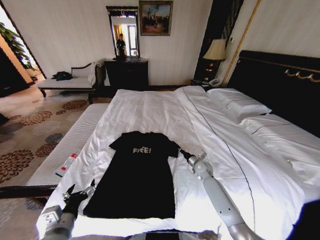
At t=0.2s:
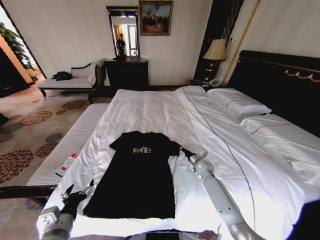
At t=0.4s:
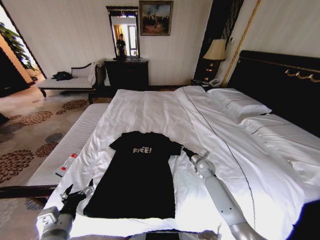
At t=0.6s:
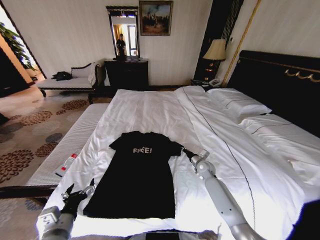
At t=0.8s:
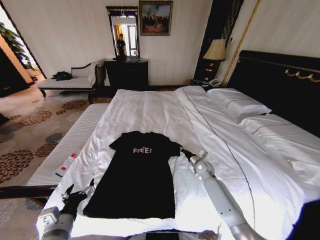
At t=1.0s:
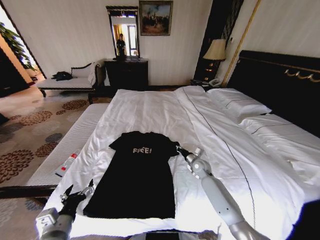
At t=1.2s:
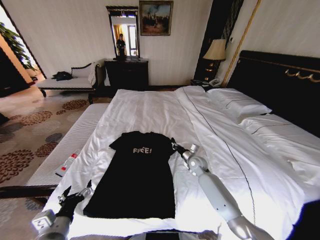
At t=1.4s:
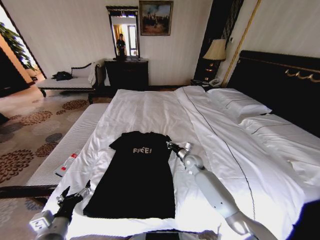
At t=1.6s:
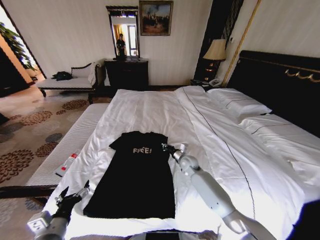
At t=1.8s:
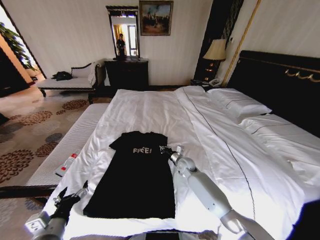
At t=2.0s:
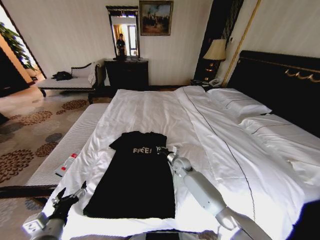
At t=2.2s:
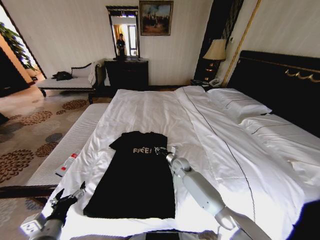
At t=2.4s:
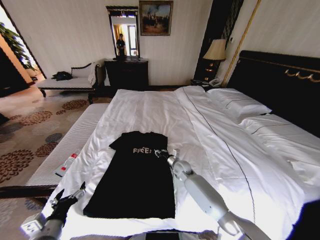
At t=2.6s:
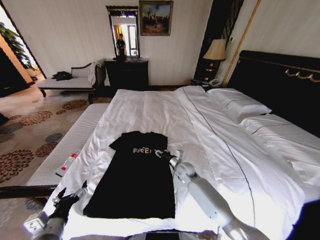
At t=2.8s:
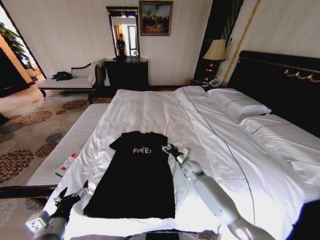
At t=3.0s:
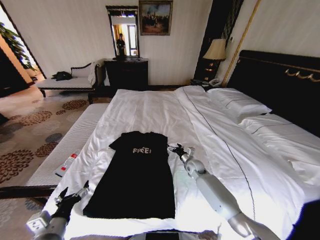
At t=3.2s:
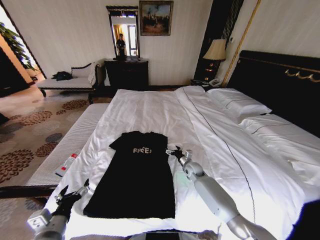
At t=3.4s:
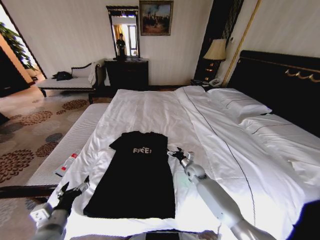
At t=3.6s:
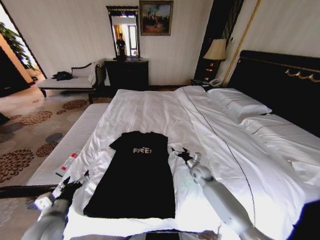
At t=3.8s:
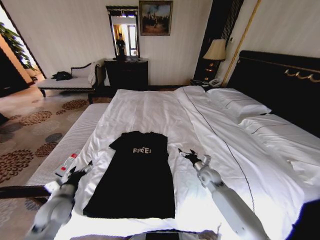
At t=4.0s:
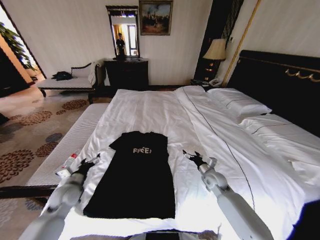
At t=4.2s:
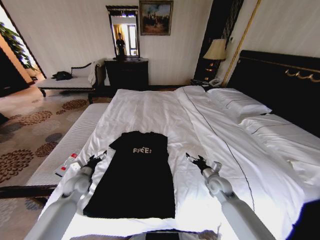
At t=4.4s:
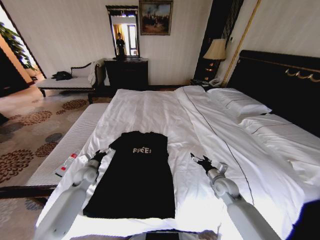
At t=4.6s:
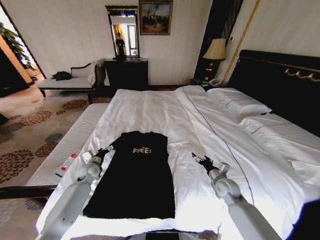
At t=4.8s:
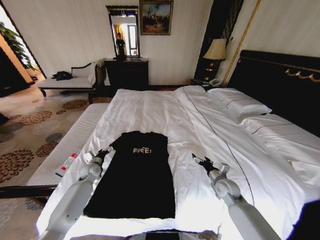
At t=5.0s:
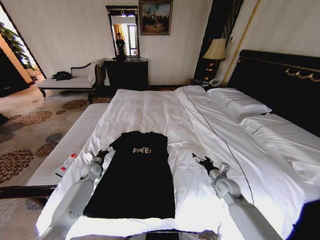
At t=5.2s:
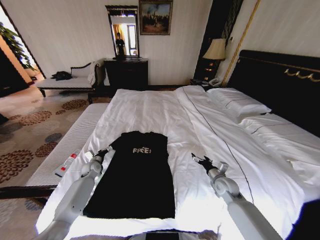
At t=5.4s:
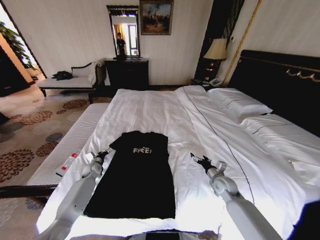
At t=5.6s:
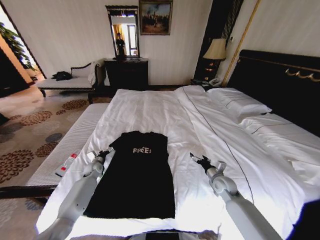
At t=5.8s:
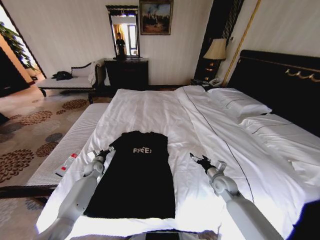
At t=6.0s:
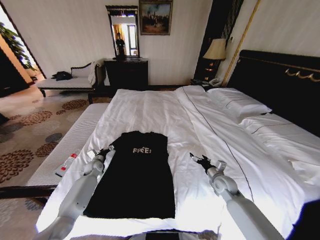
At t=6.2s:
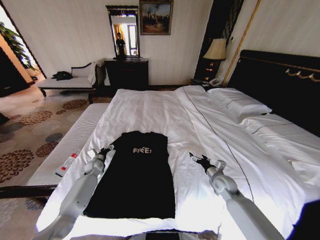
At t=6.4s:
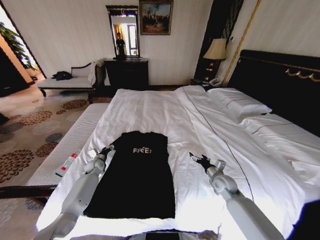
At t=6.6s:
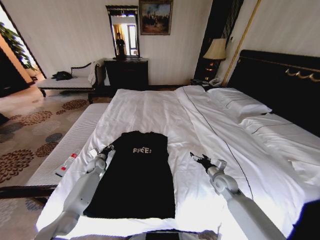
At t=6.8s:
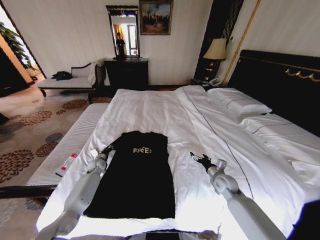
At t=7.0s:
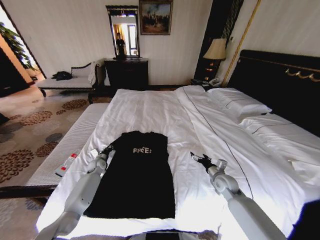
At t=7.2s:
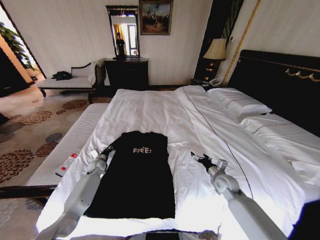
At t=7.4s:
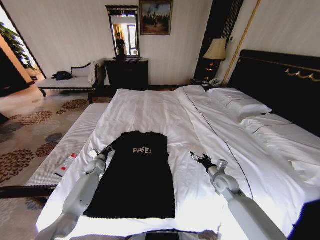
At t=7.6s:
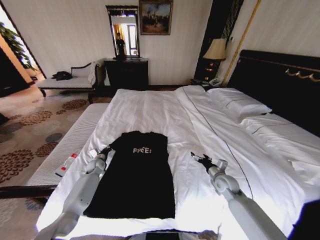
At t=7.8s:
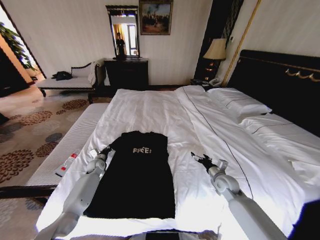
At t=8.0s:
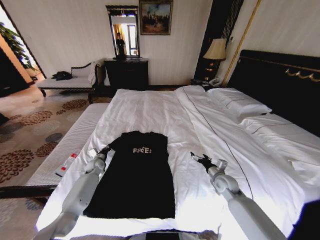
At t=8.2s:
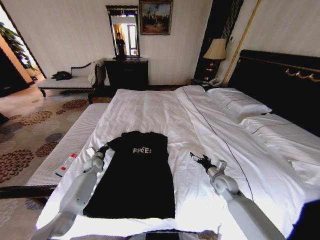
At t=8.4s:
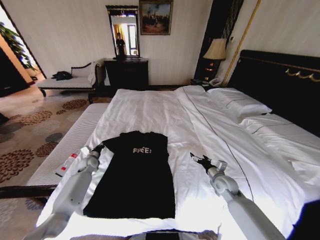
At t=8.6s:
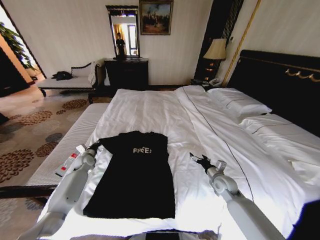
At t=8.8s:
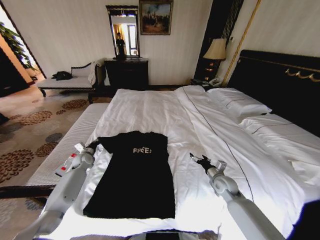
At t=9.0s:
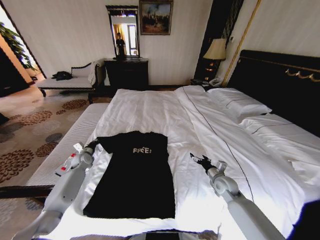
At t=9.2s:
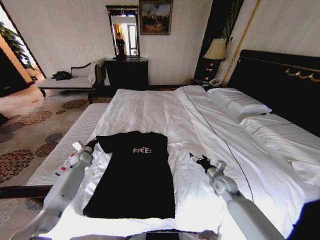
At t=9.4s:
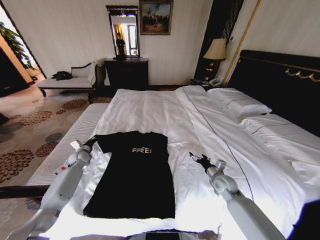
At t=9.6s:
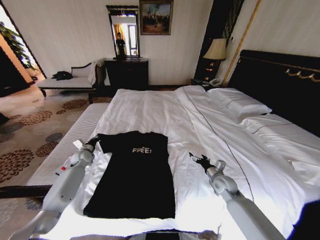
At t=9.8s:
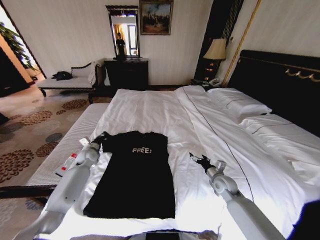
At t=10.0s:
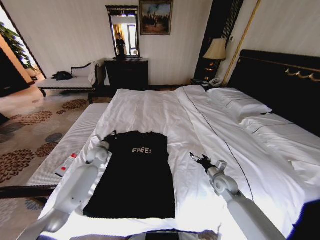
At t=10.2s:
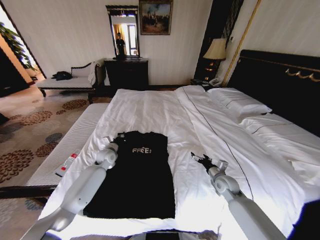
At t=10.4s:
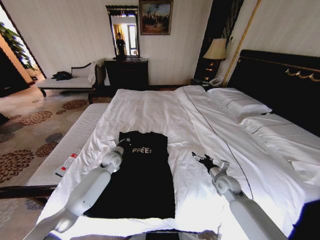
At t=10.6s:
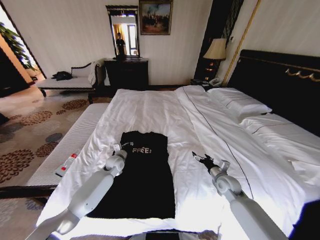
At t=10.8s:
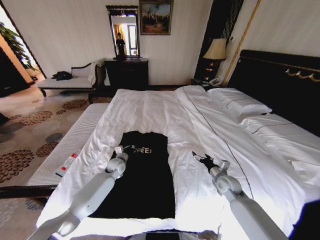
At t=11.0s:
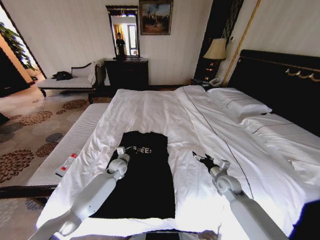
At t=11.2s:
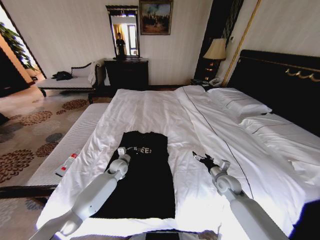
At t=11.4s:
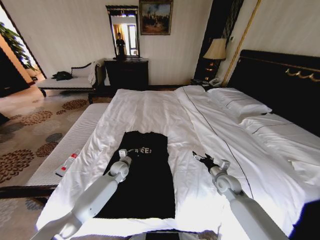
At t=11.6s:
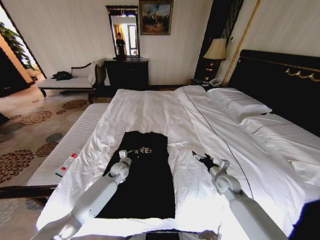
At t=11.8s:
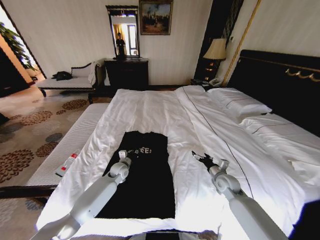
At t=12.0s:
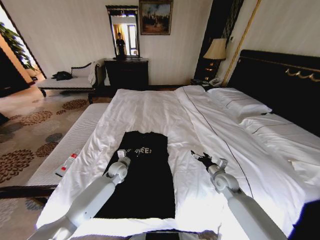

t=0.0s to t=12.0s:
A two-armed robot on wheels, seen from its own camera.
Task of the whole recording: Fold the clothes on the bed.
t=0.0s to t=1.6s: The right gripper moves to the left, roughly 10 cm.
t=1.6s to t=3.0s: The right gripper changes place by some 5 cm, and opens.
t=3.0s to t=4.4s: The left gripper travels forward by approximately 25 cm; the right gripper heads backward and to the right, covering roughly 15 cm.
t=4.4s to t=6.0s: The left gripper travels forward and downward by about 10 cm.
t=6.0s to t=7.6s: The left gripper closes up.
t=7.6s to t=9.0s: The left gripper moves to the left and upward, approximately 10 cm.
t=9.0s to t=10.4s: The left gripper shifts about 20 cm to the right.
t=10.4s to t=12.0s: The left gripper ends up about 5 cm from where it was, and opens up.

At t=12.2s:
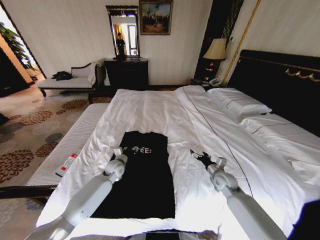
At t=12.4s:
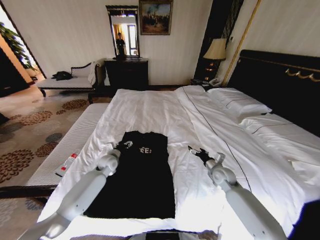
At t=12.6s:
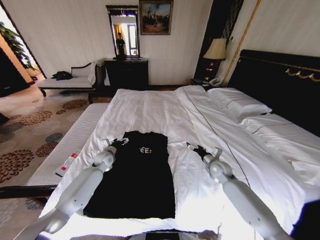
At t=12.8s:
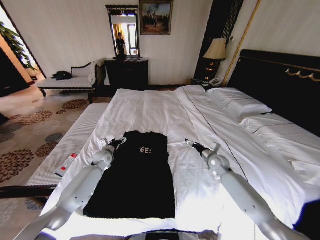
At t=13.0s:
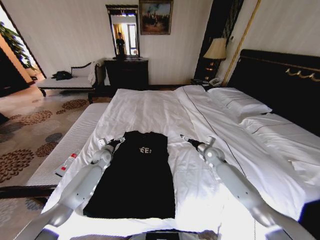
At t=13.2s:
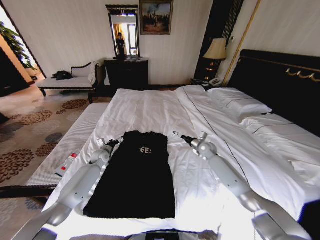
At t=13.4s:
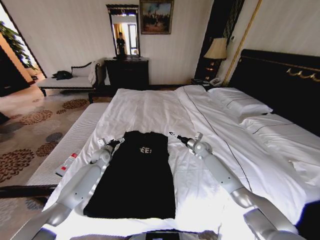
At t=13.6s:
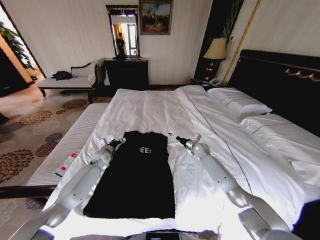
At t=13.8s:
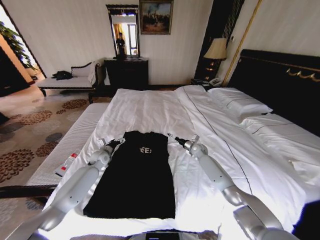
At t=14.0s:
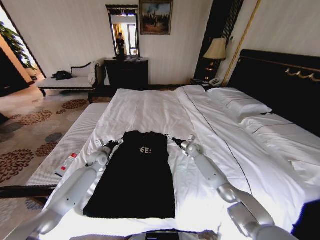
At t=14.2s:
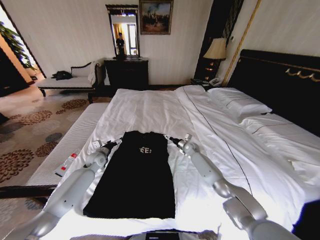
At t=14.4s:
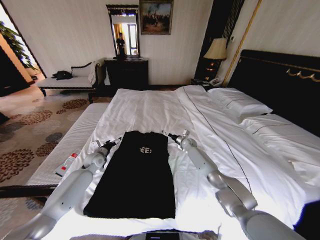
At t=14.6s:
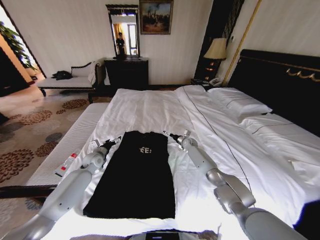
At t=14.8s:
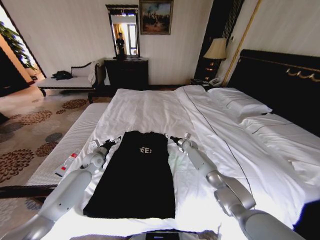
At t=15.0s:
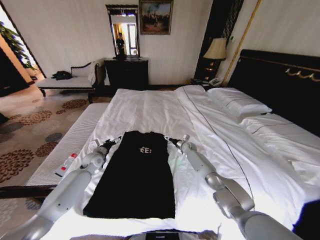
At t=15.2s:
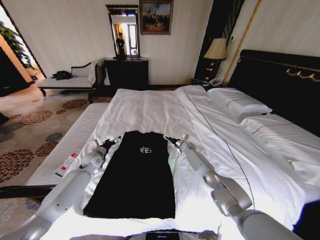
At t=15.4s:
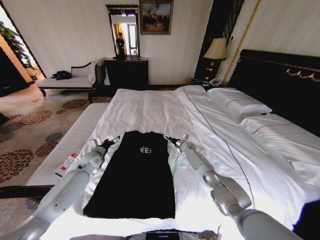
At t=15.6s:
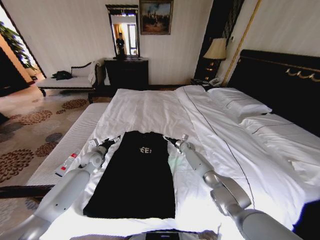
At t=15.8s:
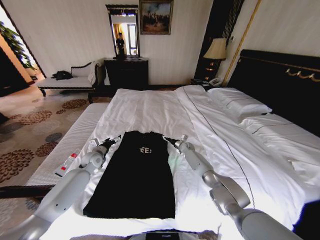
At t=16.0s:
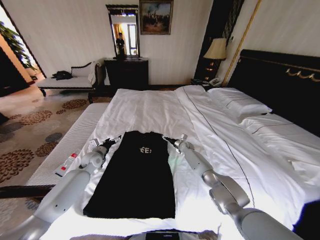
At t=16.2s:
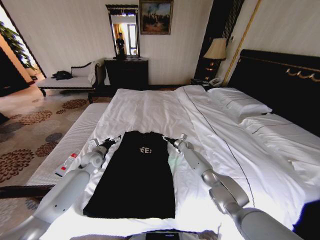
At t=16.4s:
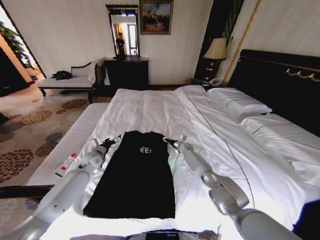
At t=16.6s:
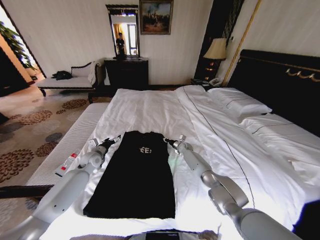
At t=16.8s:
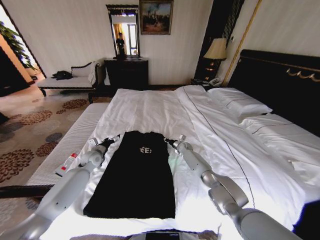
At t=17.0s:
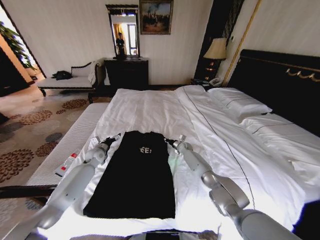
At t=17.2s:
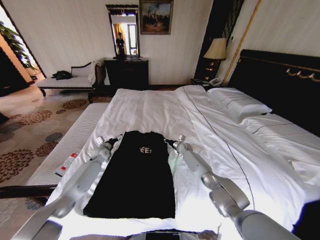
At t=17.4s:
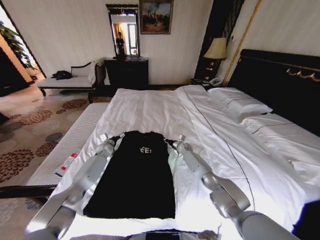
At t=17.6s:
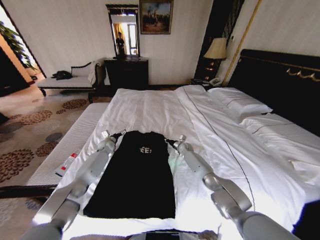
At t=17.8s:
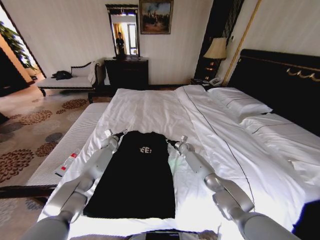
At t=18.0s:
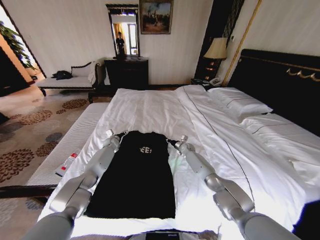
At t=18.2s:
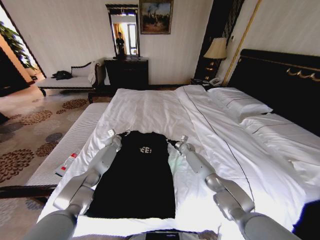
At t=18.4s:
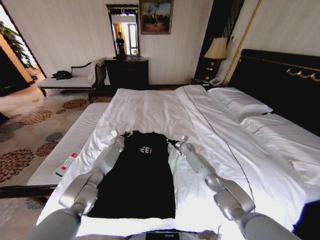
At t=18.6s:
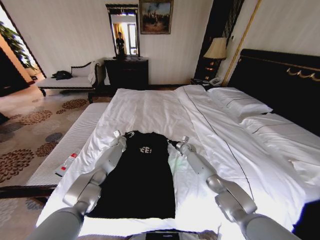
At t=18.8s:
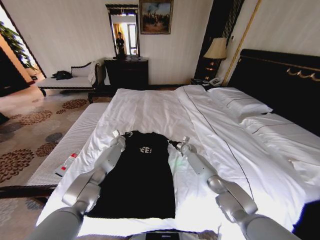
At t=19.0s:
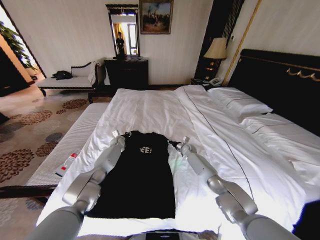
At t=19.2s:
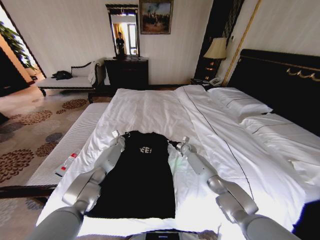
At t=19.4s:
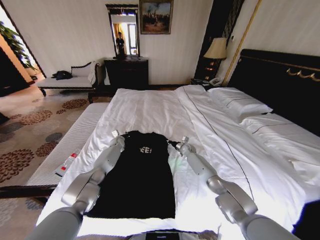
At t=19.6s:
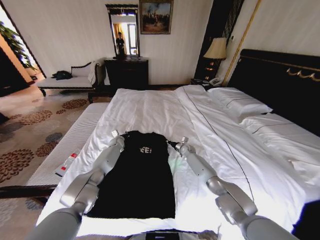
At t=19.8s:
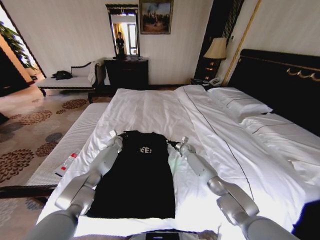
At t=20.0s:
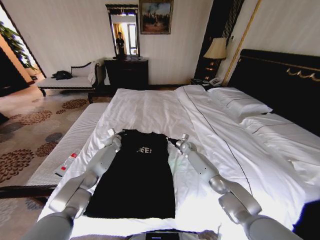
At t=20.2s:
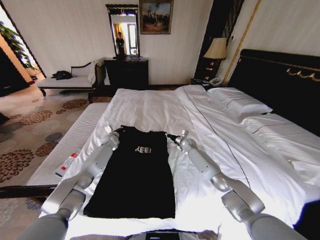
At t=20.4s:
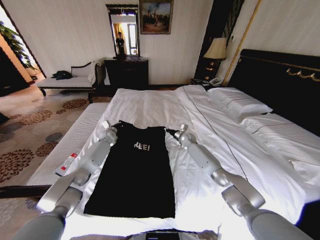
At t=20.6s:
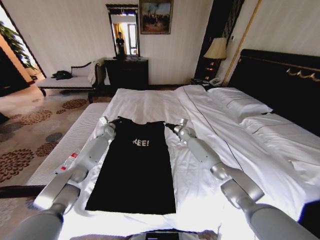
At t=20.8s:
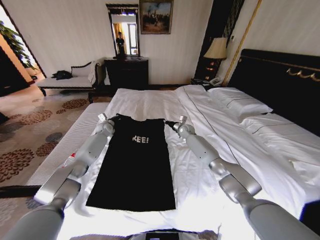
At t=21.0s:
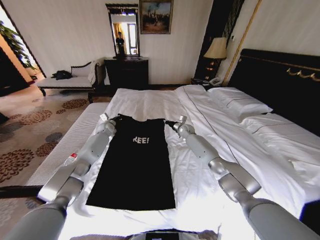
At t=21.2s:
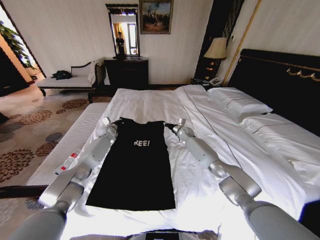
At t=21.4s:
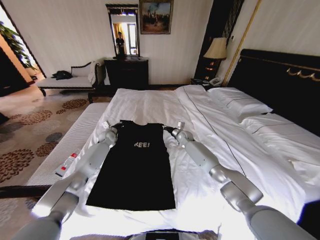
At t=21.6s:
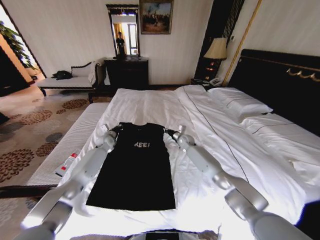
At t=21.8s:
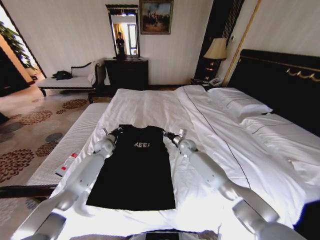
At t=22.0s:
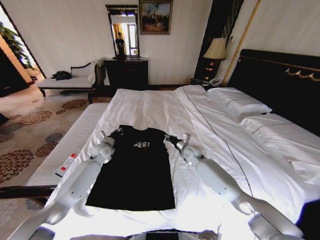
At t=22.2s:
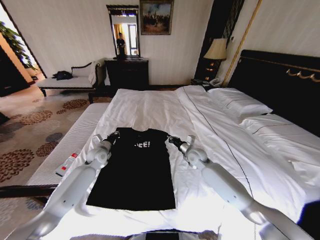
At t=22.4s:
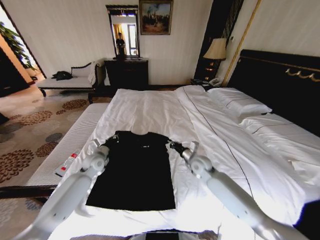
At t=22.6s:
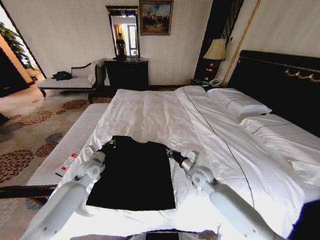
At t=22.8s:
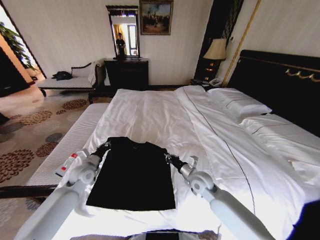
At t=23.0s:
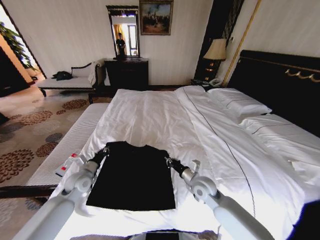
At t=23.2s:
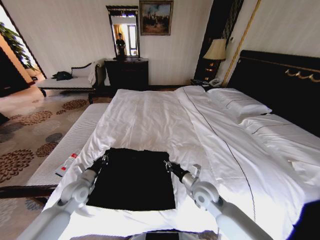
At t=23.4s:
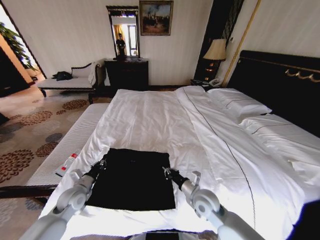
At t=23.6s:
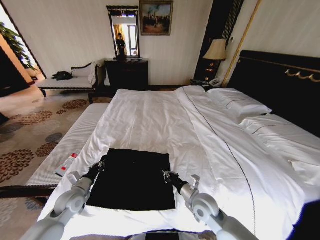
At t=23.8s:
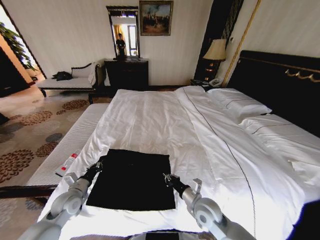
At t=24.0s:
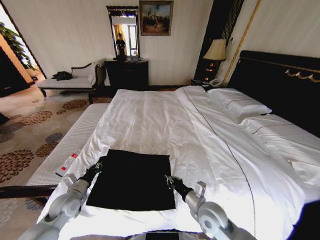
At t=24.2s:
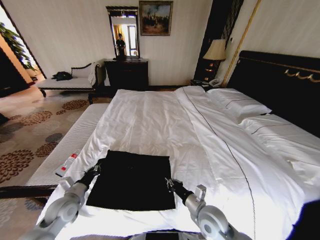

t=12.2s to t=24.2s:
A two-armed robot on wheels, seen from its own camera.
Task of the whole recording: Fold the clothes on the bed.
t=12.2s to t=13.8s: The left gripper moves to the left, approximately 10 cm, and opens up; the right gripper travels forward by about 20 cm.
t=13.8s to t=15.2s: The right gripper travels forward by some 5 cm.
t=15.2s to t=16.6s: The right gripper closes its fingers.
t=16.6s to t=18.2s: The left gripper shifts some 15 cm forward.
t=18.2s to t=19.8s: The left gripper closes up.
t=19.8s to t=21.2s: The right gripper shifts approximately 15 cm upward and forward. The left gripper shifts approximately 10 cm upward.
t=21.2s to t=22.6s: Both grippers travel together backward, some 25 cm.
t=22.6s to t=24.2s: The two grippers go some 15 cm backward.
